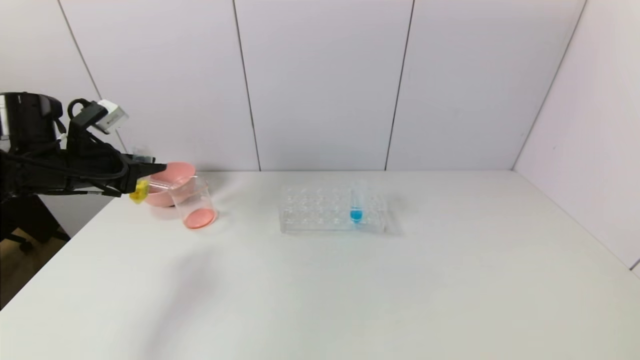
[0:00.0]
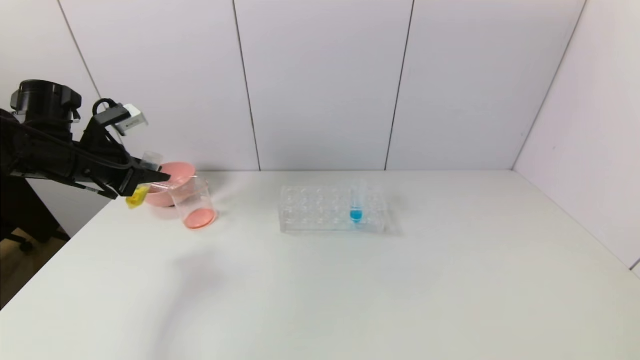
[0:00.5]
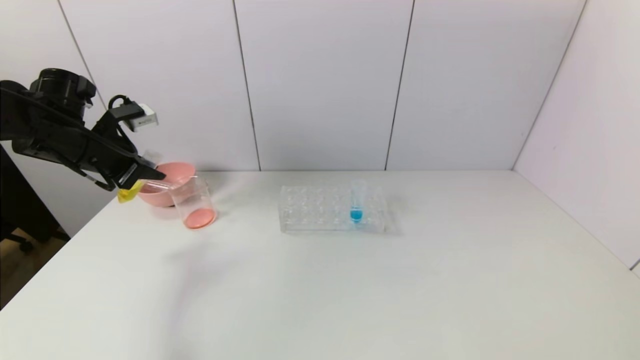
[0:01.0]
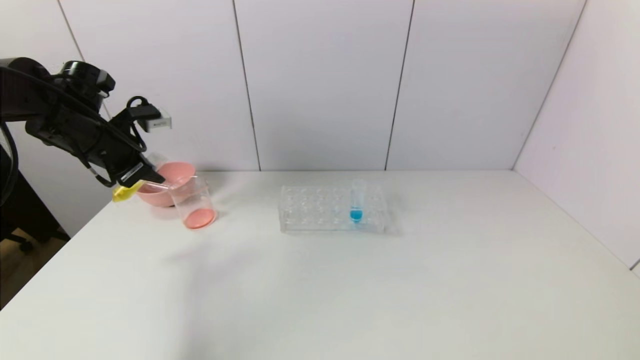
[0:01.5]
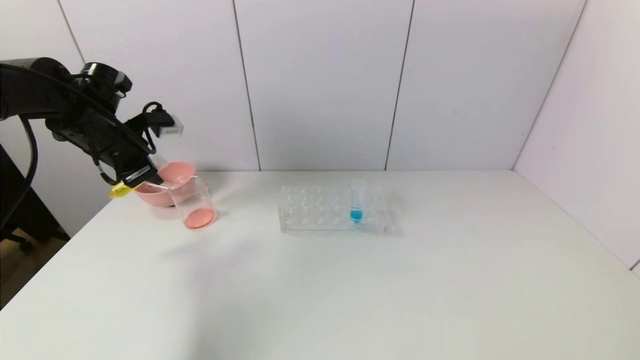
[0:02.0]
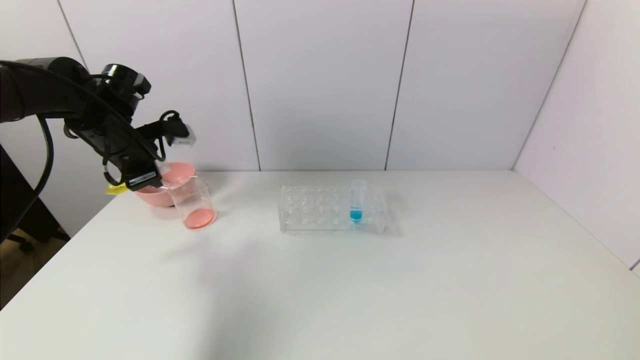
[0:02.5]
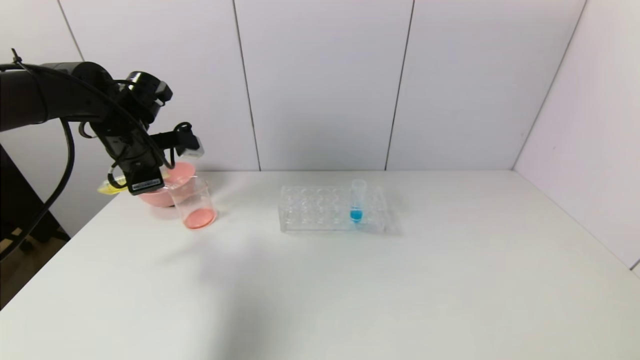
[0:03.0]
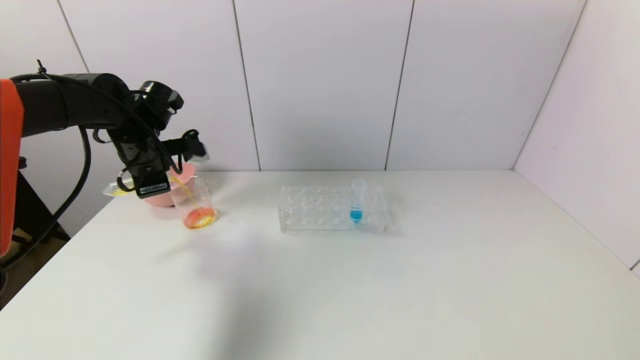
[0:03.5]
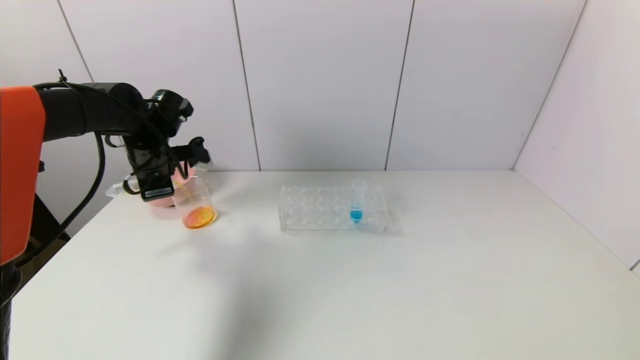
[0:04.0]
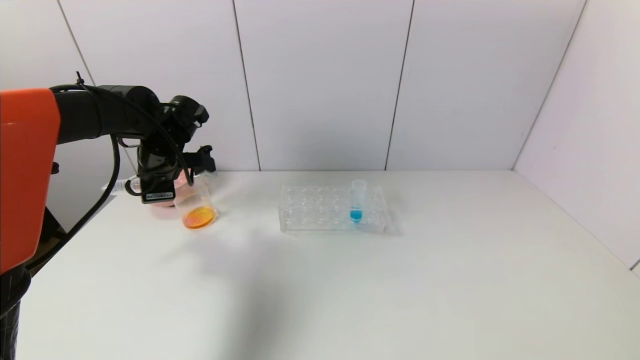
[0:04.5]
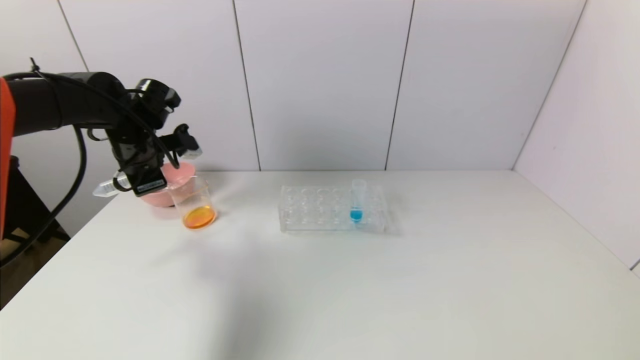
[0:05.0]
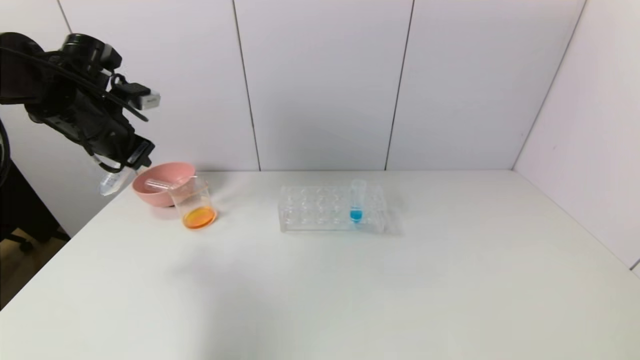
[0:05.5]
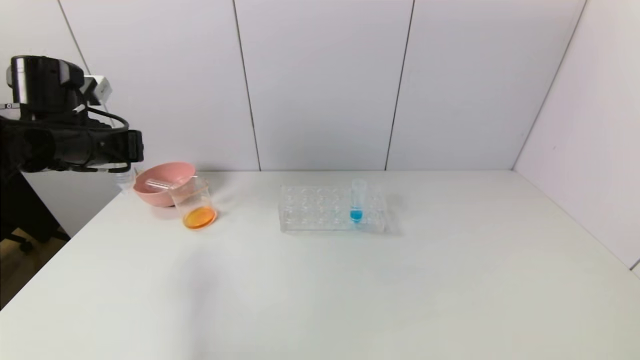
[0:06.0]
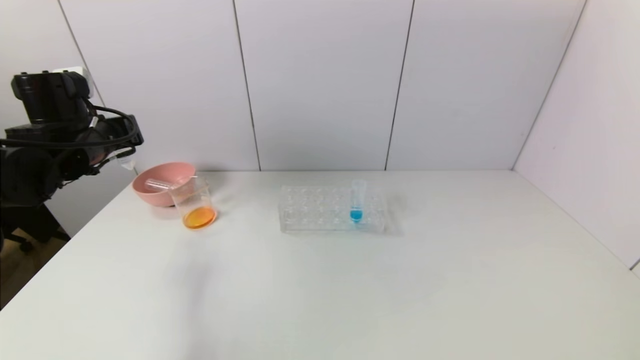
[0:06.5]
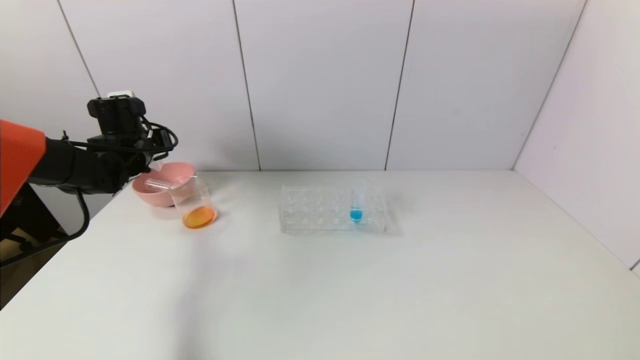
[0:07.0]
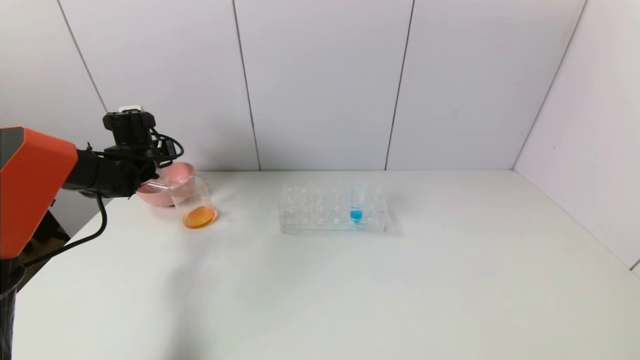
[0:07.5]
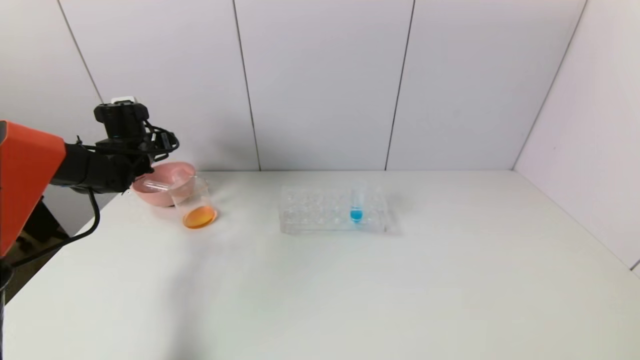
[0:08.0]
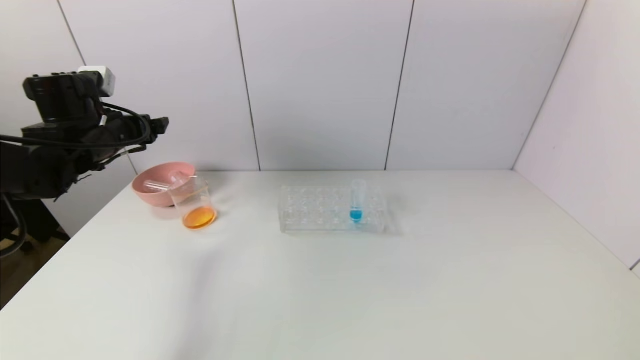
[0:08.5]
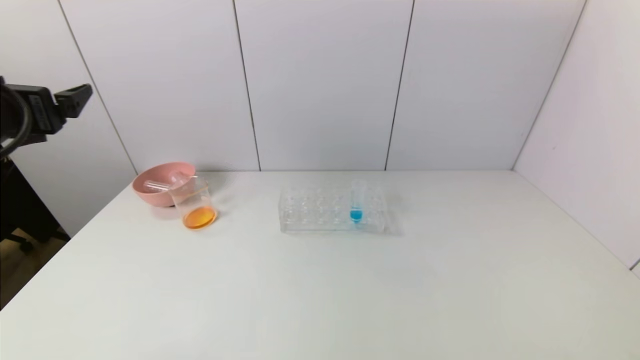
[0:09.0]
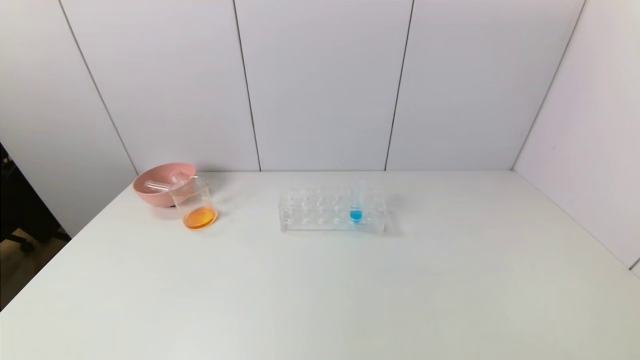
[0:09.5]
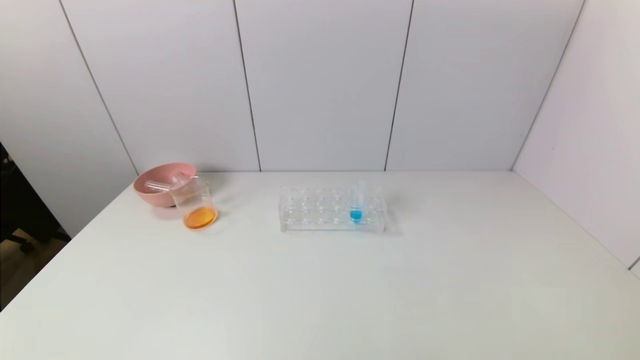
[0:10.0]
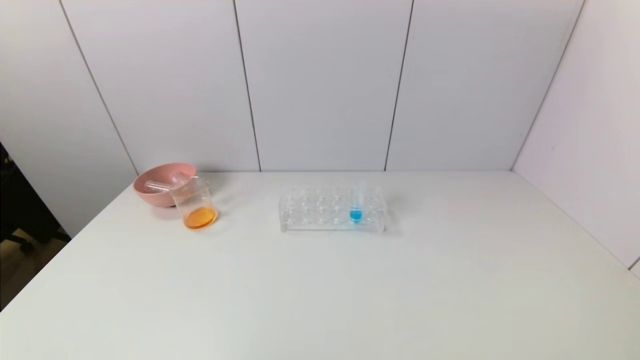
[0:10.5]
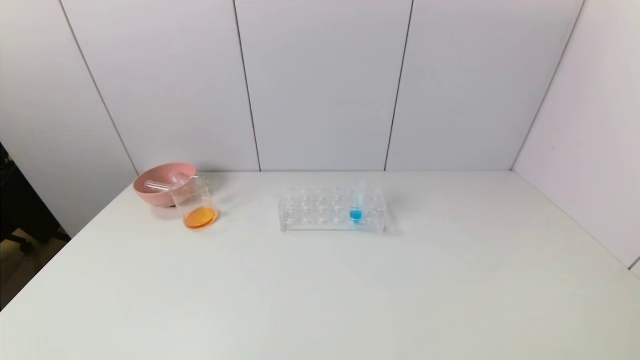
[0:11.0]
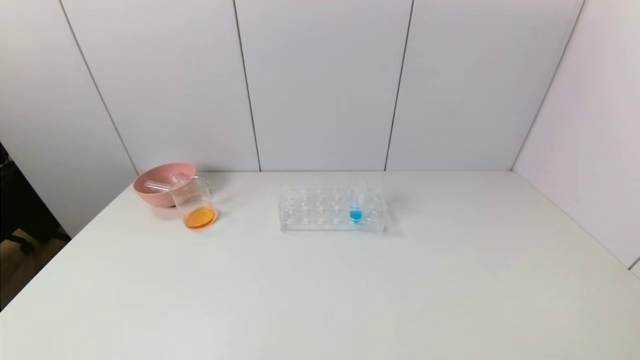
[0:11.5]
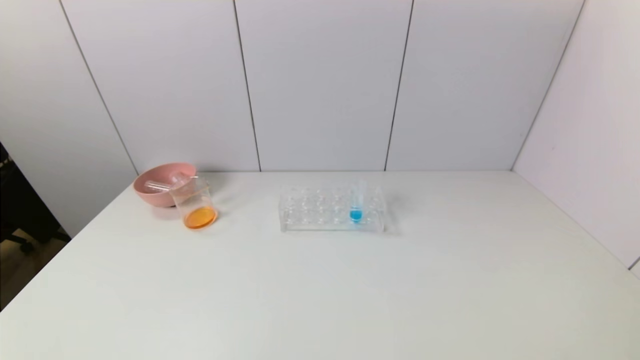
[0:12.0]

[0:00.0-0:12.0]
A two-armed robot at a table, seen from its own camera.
Task of the whole recording: pick up the test tube with yellow pigment and the test tube with red pigment by grippers and pour them into the beaker.
Step, 0:00.0 to 0:04.5: Pour the yellow reagent into the graduated cylinder with the left gripper.
Step, 0:05.0 to 0:07.5: Place the test tube into the pink bowl with the left gripper.
0:00.0 to 0:02.0: The left gripper goes approximately 5 cm forward.
0:02.0 to 0:04.0: The left gripper is displaced to the right by some 5 cm.
0:04.0 to 0:06.0: The left gripper goes roughly 10 cm backward.
0:06.0 to 0:08.0: The left gripper is displaced forward and downward by roughly 15 cm, and opens.
0:08.0 to 0:10.0: The left gripper shifts about 50 cm backward.

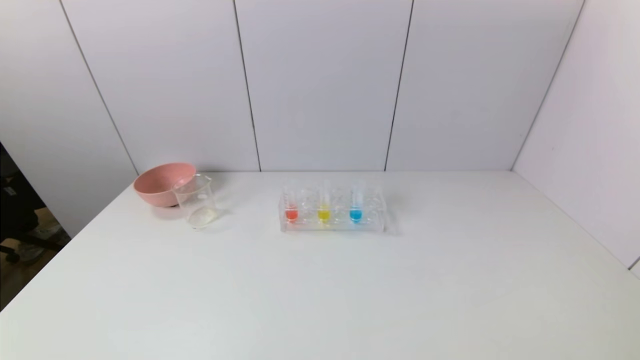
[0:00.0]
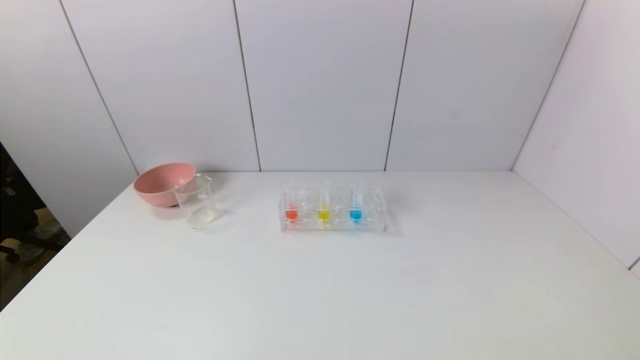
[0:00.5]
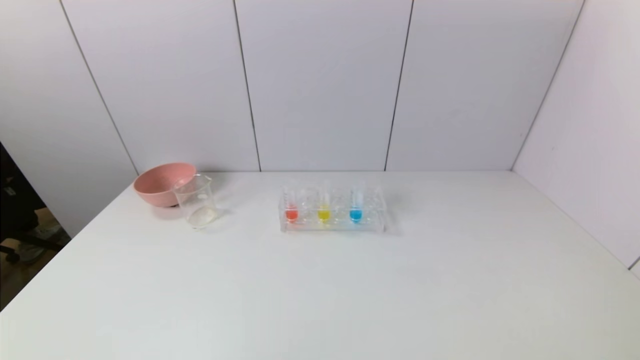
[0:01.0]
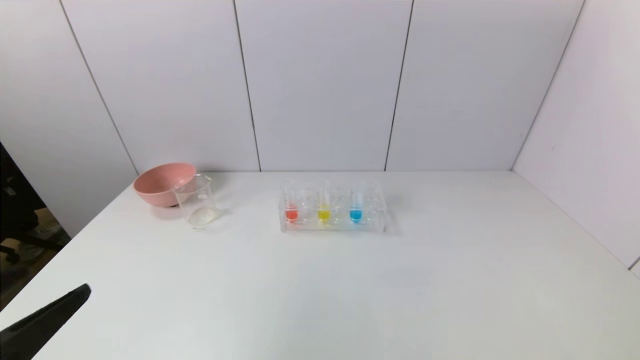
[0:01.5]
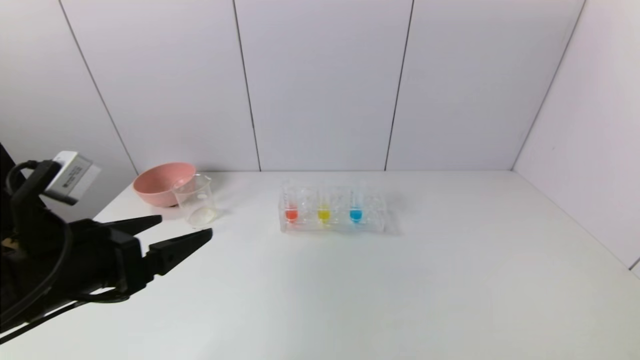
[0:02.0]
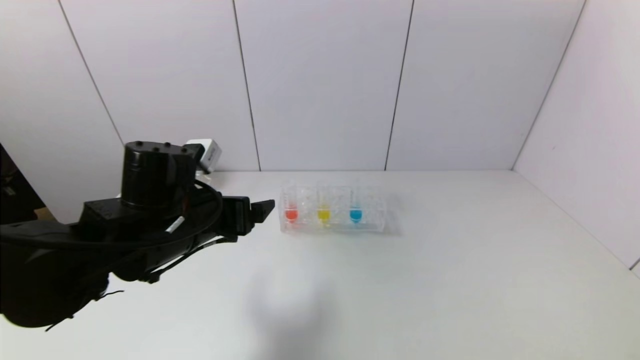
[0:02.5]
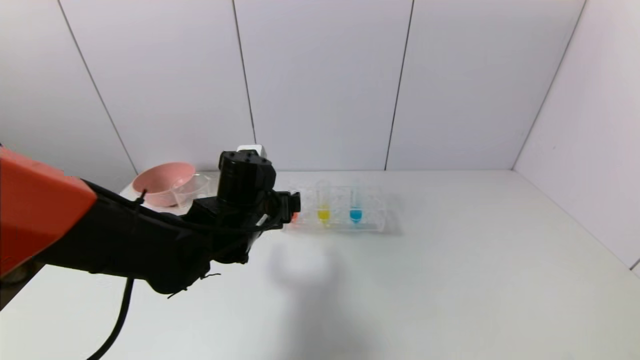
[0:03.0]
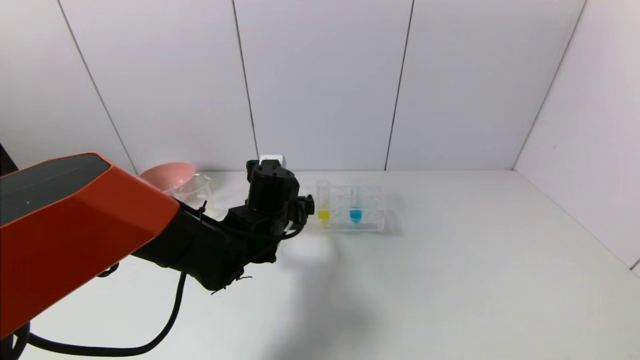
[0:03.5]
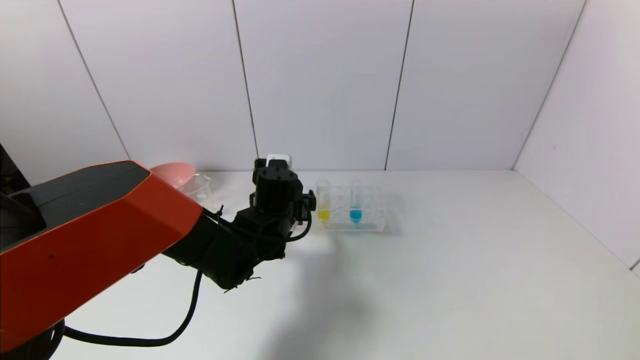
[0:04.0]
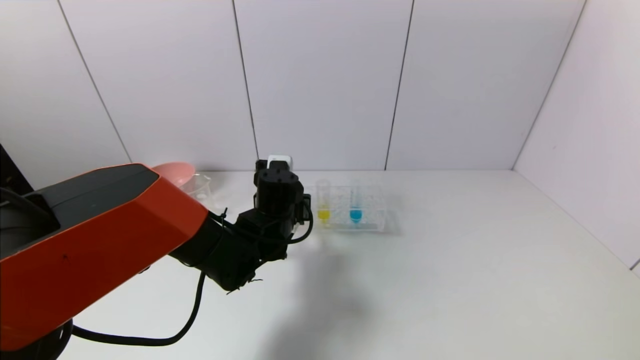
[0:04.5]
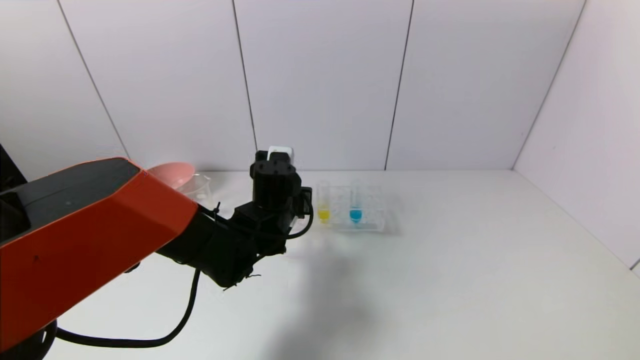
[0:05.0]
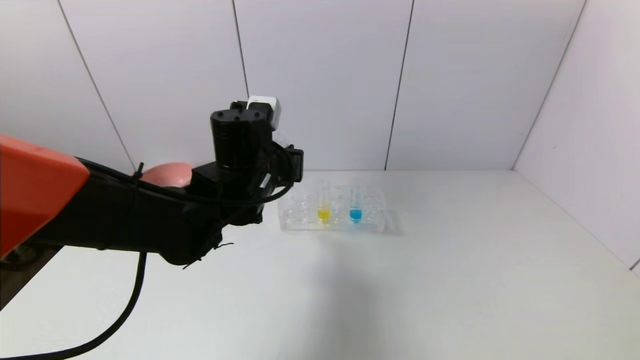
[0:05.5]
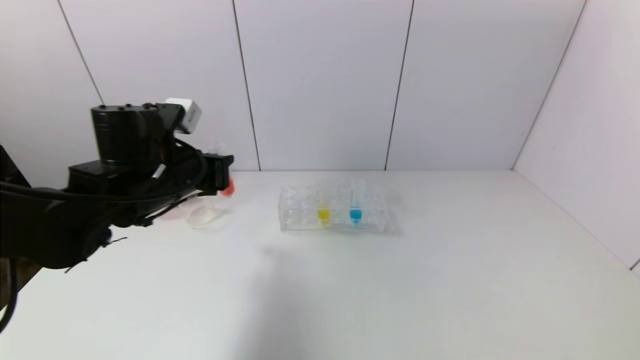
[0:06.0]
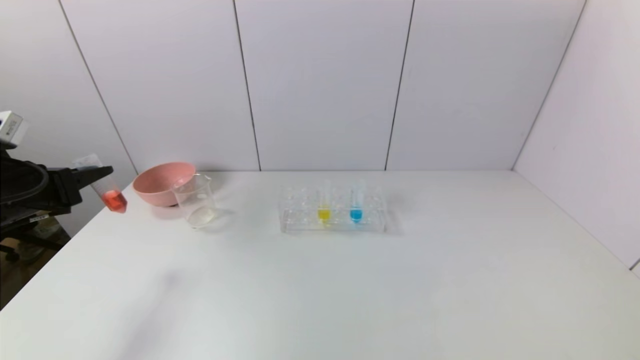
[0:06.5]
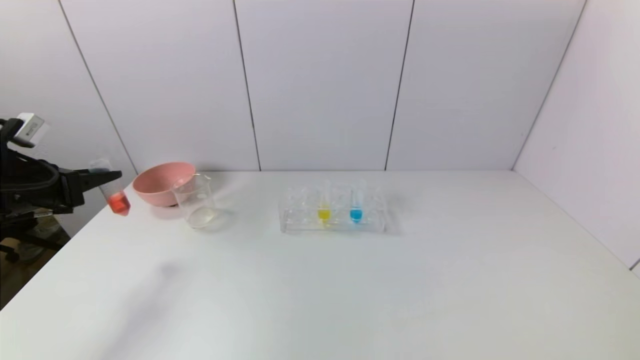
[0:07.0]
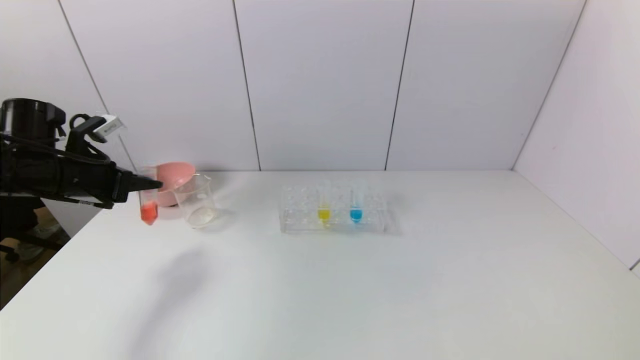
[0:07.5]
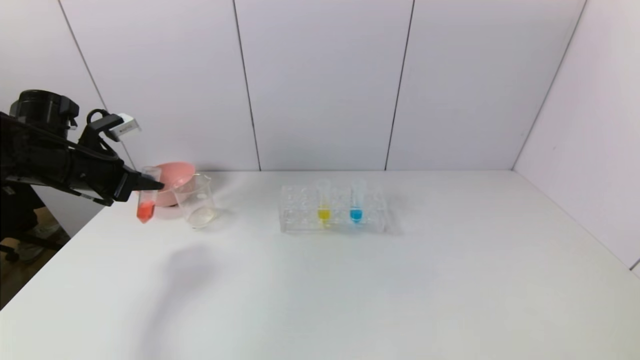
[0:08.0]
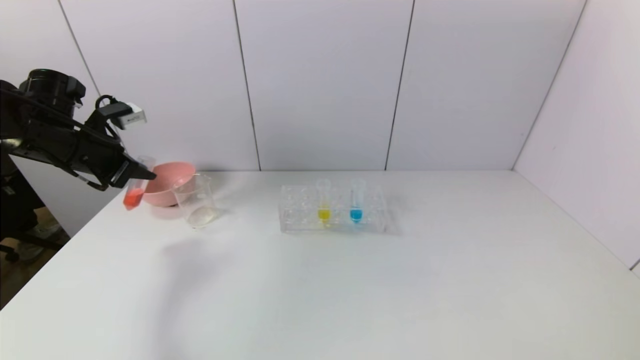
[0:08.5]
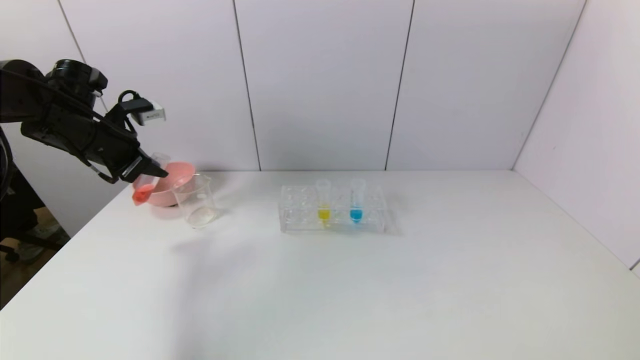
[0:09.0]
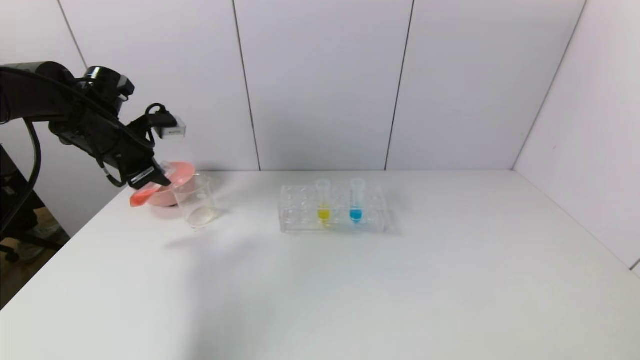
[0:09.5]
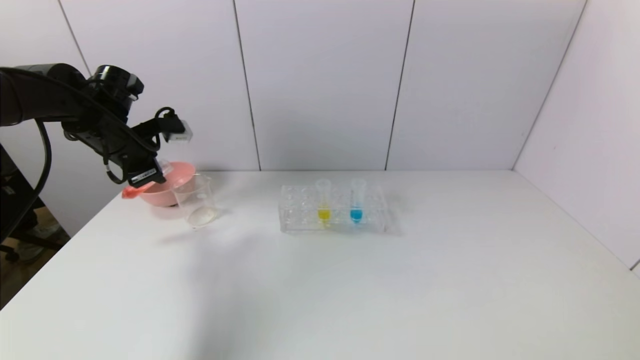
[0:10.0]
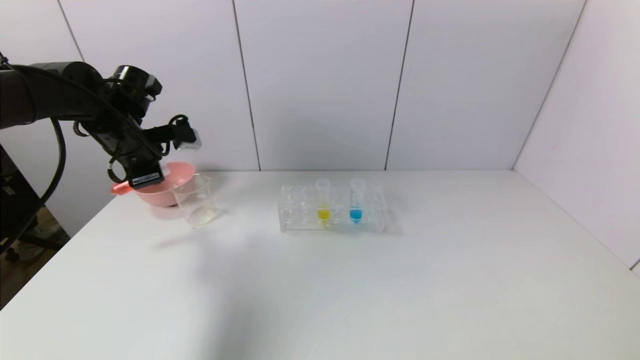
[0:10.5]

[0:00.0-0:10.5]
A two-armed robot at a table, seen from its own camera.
Task of the whole recording: pick up the test tube with yellow pigment and the test tube with red pigment by grippers and pour them into the beaker.
Step, 0:00.0 to 0:04.5: Grasp the red reagent with the left gripper.
0:00.0 to 0:02.0: The left gripper travels forward and upward by about 20 cm.
0:02.0 to 0:04.0: The left gripper moves forward, to the right and downward, about 25 cm.
0:04.0 to 0:06.5: The left gripper goes about 30 cm to the left, and closes up.
0:06.5 to 0:08.5: The left gripper is displaced forward by roughly 10 cm.
0:08.5 to 0:10.5: The left gripper travels to the right by some 5 cm.
